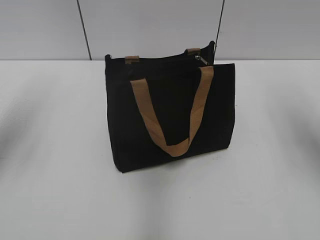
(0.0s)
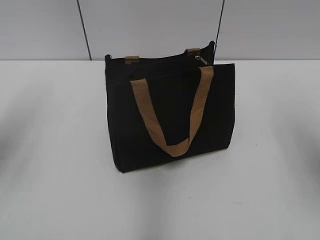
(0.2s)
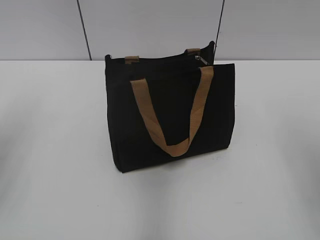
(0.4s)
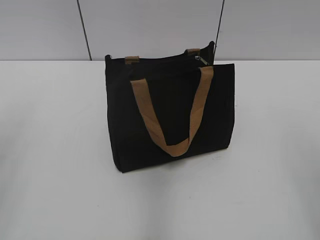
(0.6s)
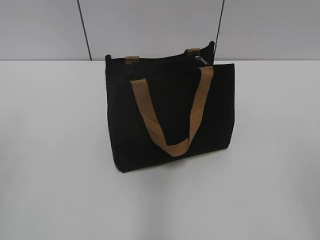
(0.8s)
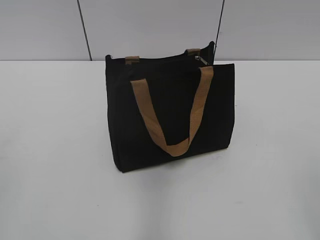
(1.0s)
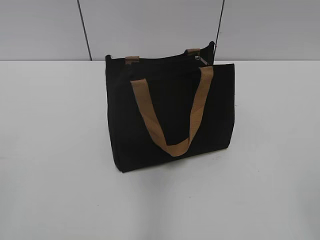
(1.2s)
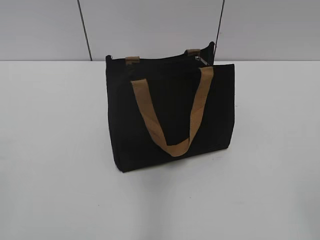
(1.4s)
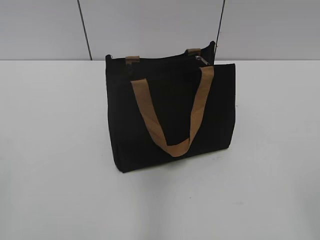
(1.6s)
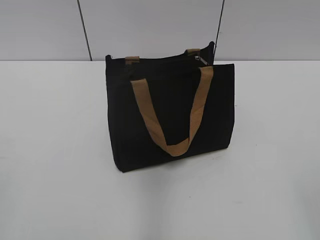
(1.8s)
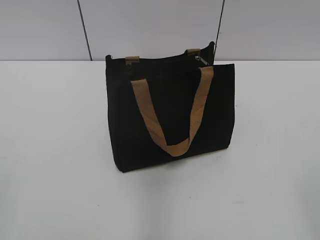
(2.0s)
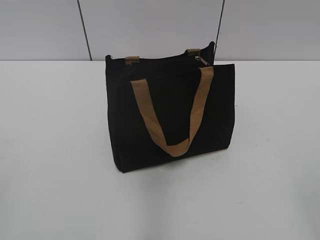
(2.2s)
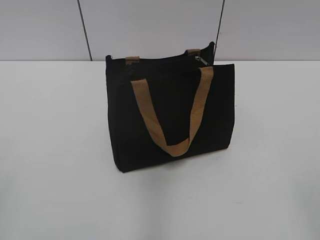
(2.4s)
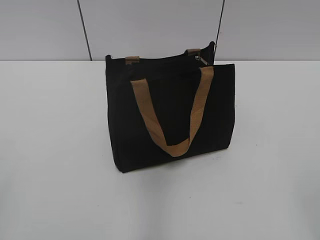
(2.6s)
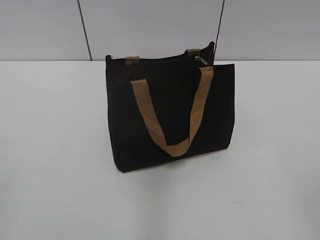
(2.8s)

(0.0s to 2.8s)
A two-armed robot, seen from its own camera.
0.0s - 1.4s: The two grippers go some 30 cm backward.
